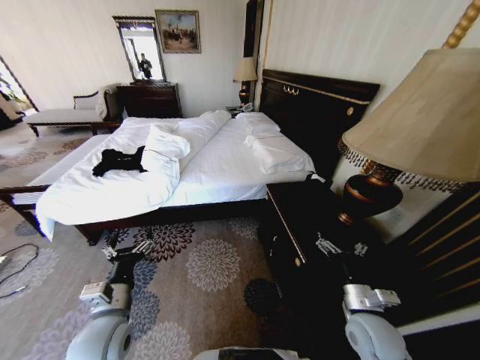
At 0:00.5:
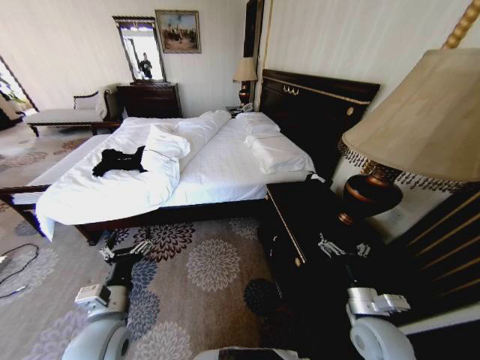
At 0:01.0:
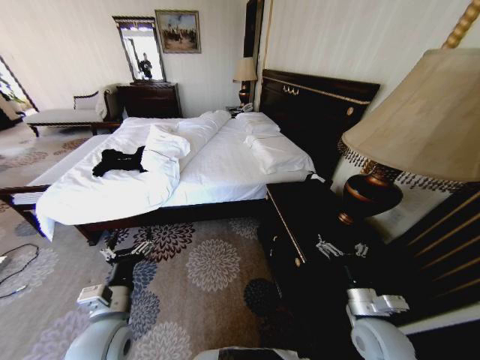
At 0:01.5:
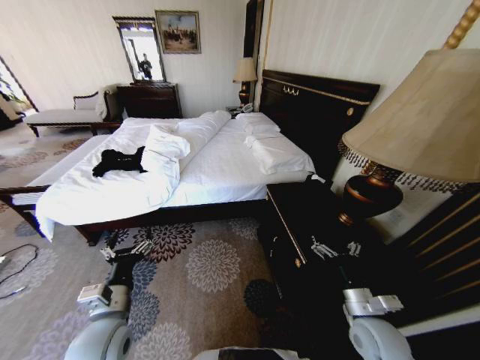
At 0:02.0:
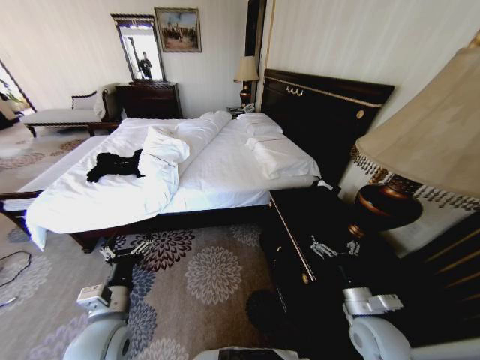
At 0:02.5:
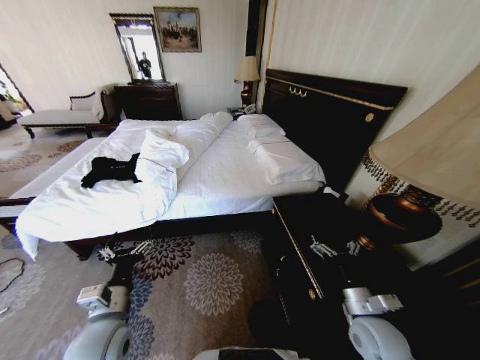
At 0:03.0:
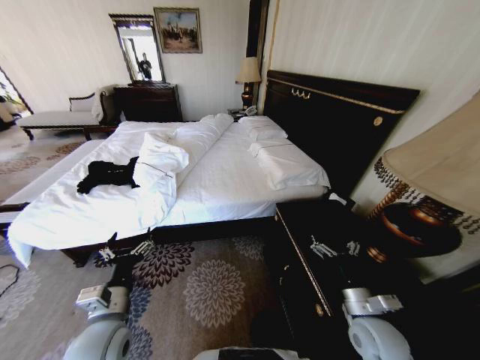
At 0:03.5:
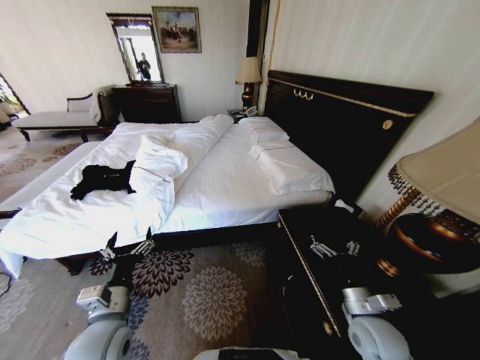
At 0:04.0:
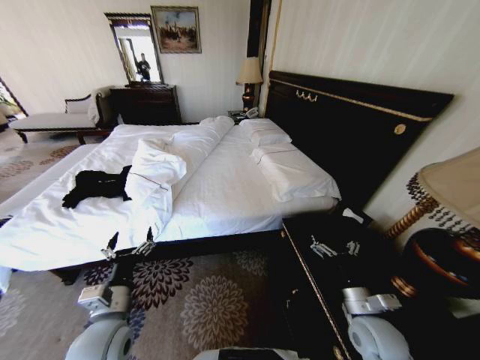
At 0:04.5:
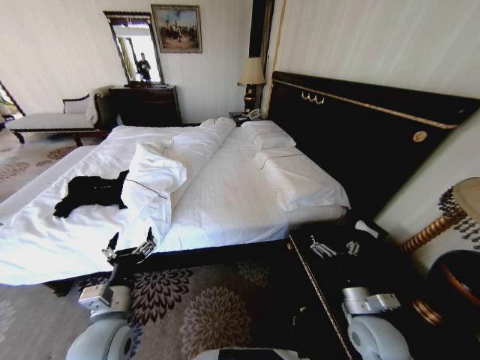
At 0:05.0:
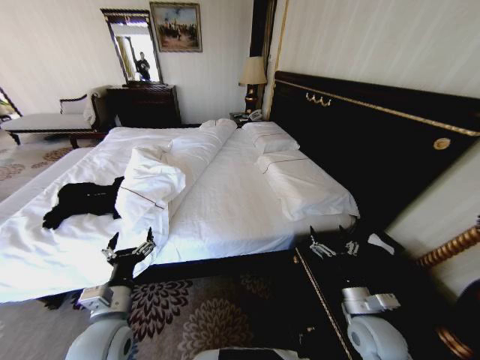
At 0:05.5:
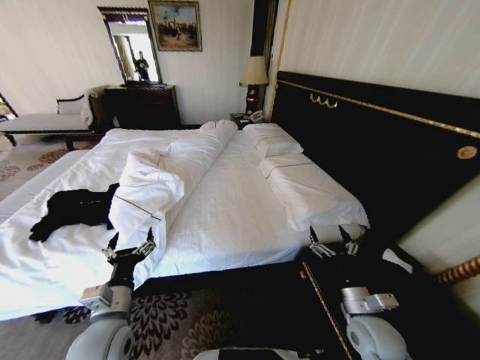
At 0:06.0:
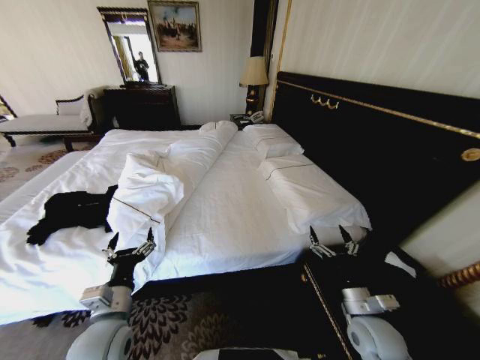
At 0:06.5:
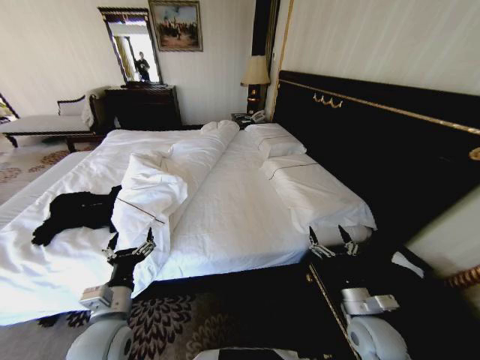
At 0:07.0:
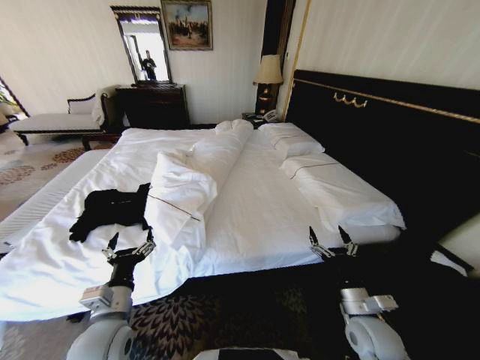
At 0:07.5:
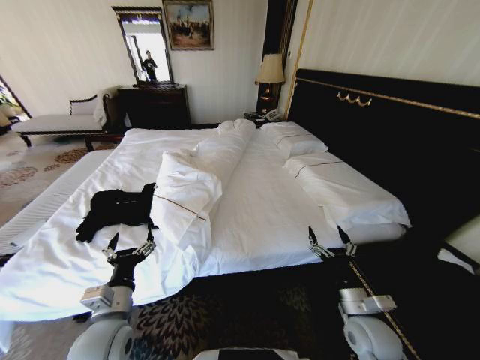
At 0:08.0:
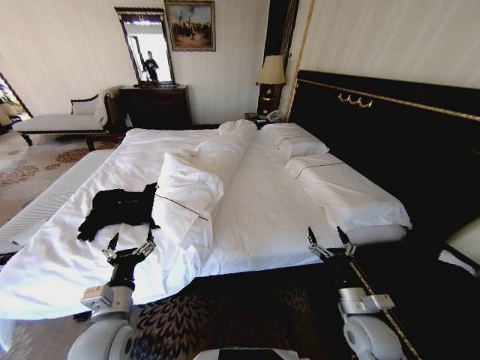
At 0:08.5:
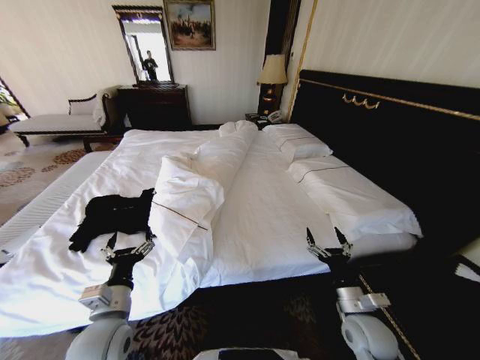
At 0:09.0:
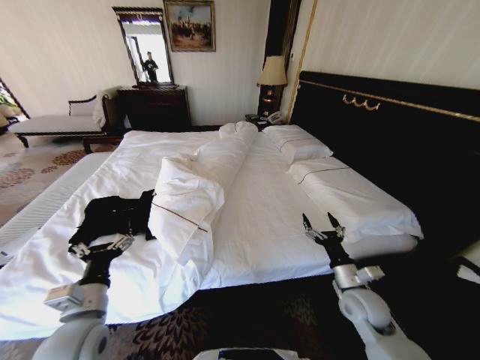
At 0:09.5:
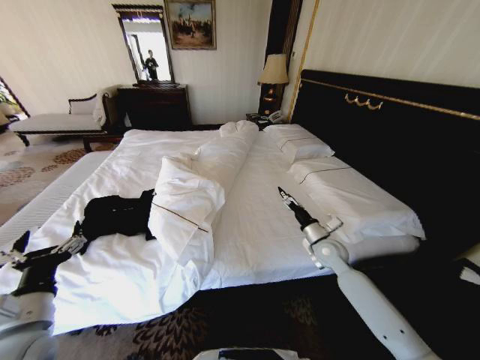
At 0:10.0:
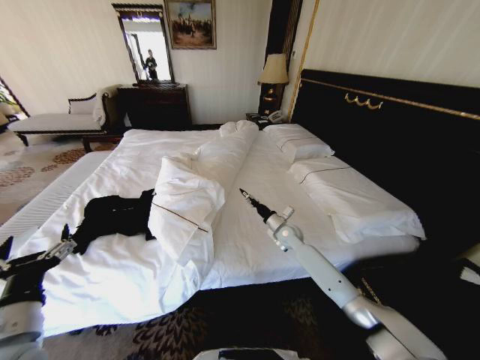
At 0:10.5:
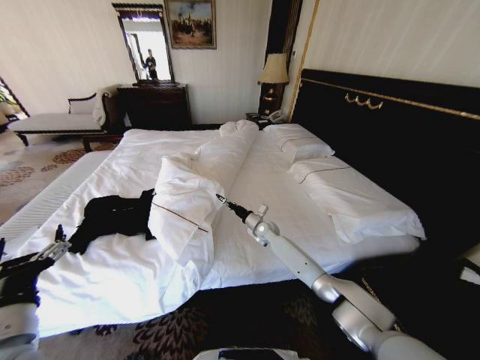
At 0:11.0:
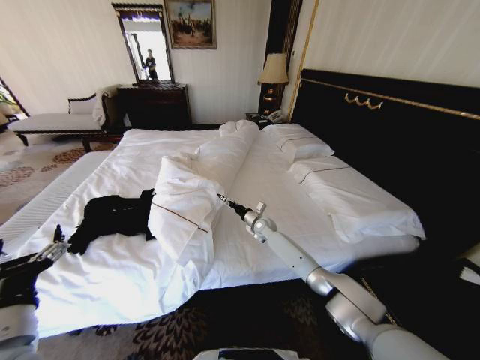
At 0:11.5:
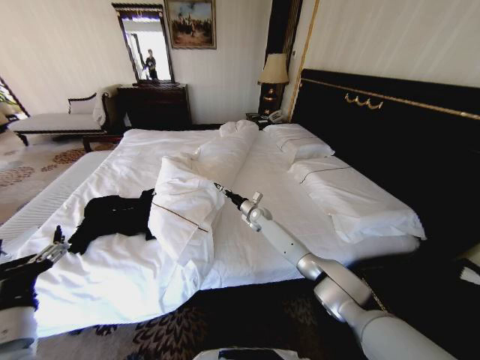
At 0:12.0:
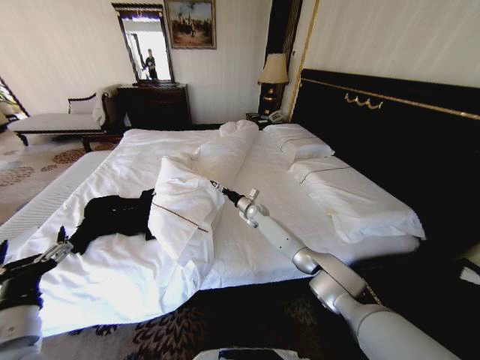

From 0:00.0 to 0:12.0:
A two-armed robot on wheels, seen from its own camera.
Task of the whole recording: Fold the clothes on the bed.
From 0:08.0 to 0:10.0: The right gripper heads forward, covering some 30 cm, while the left gripper goes about 10 cm to the left and upward.
From 0:10.0 to 0:12.0: The right gripper moves forward and to the left, roughly 15 cm.

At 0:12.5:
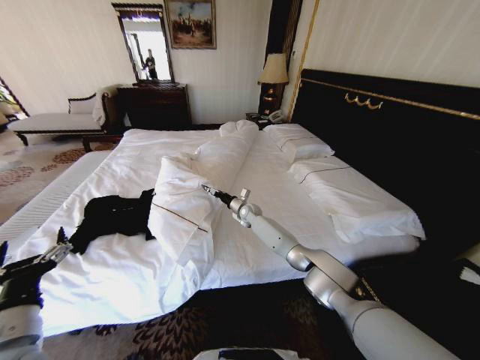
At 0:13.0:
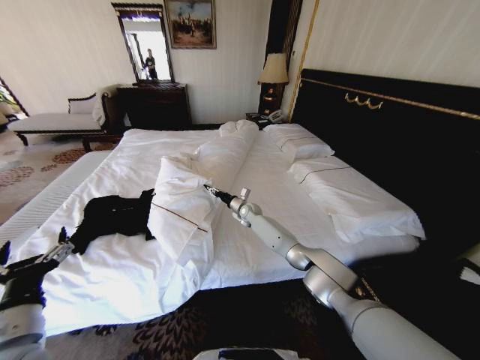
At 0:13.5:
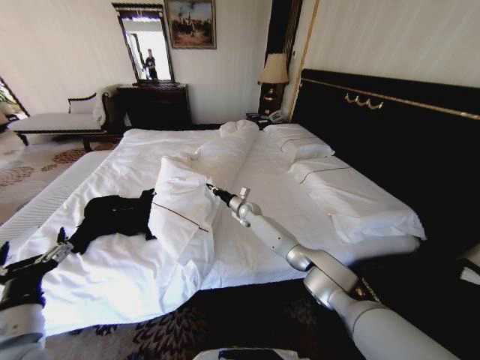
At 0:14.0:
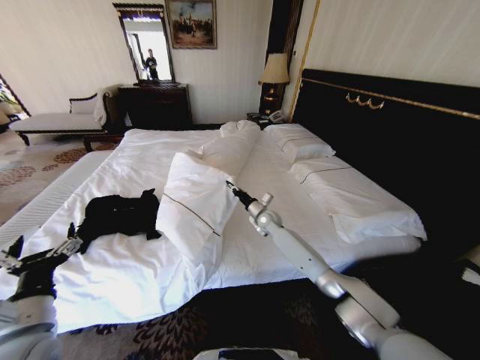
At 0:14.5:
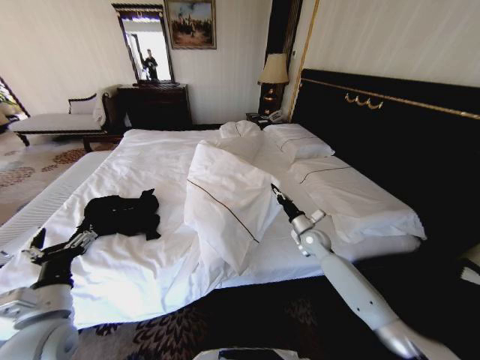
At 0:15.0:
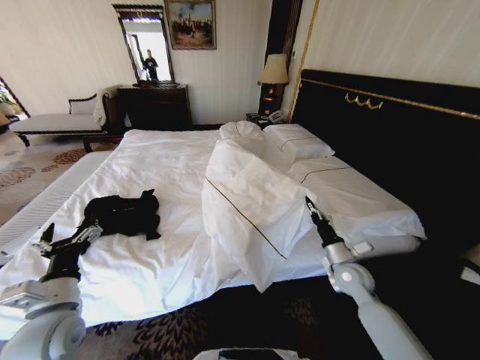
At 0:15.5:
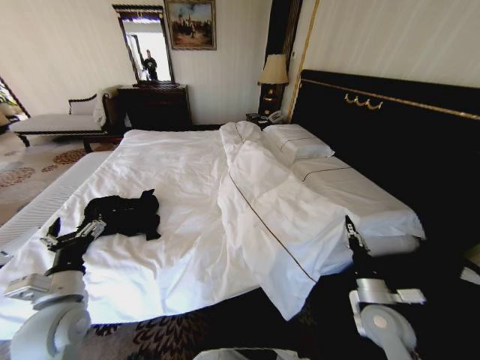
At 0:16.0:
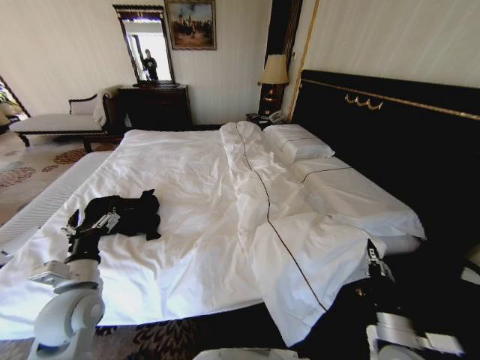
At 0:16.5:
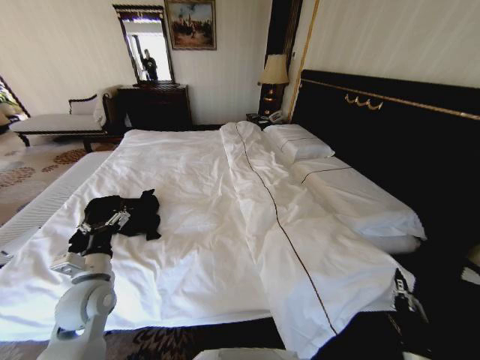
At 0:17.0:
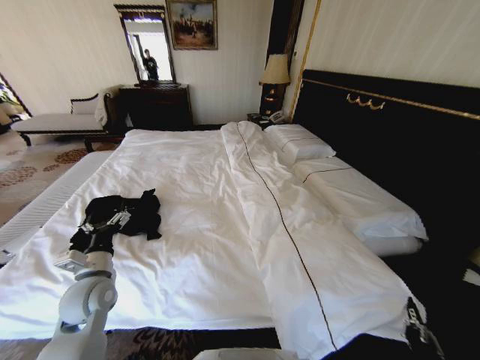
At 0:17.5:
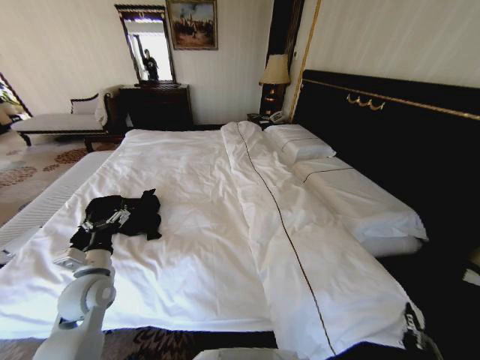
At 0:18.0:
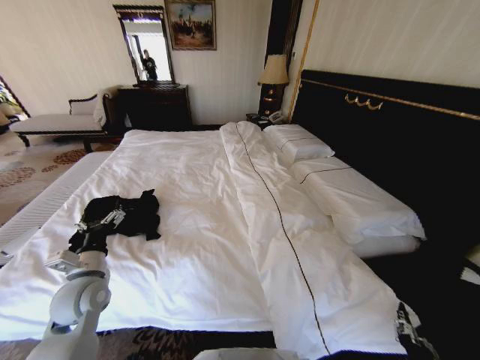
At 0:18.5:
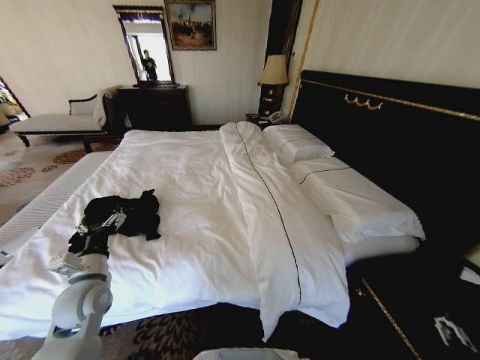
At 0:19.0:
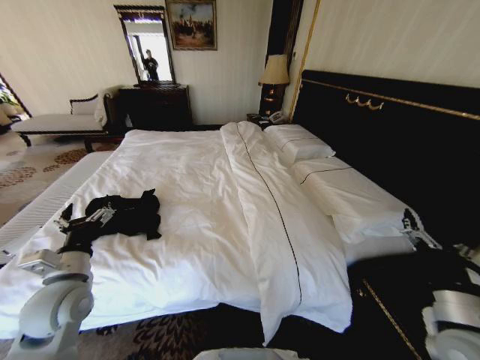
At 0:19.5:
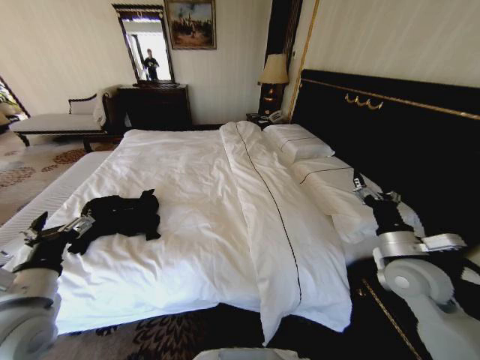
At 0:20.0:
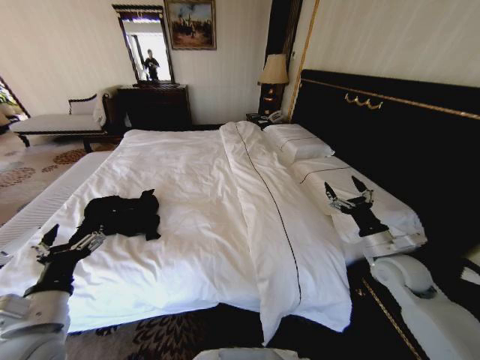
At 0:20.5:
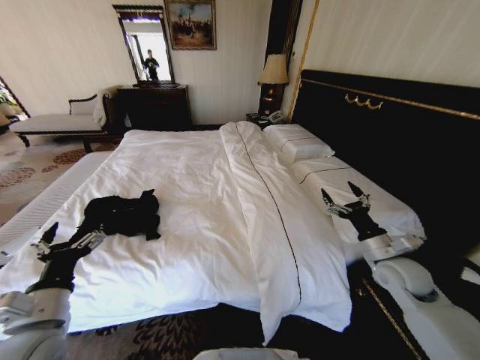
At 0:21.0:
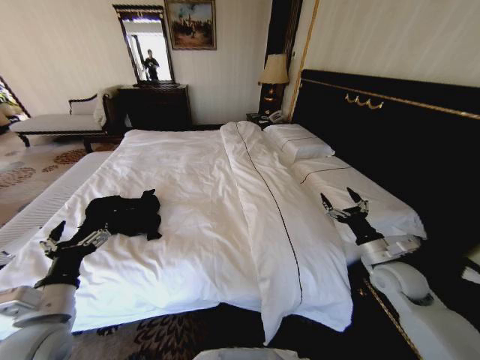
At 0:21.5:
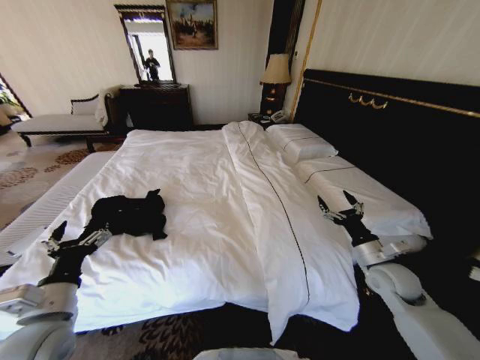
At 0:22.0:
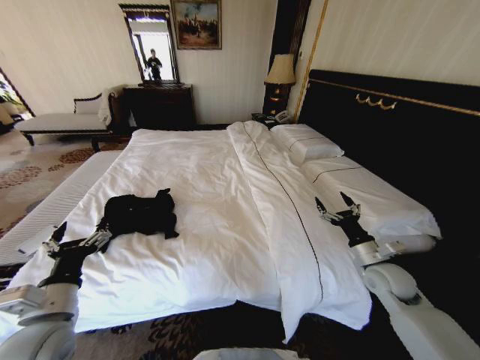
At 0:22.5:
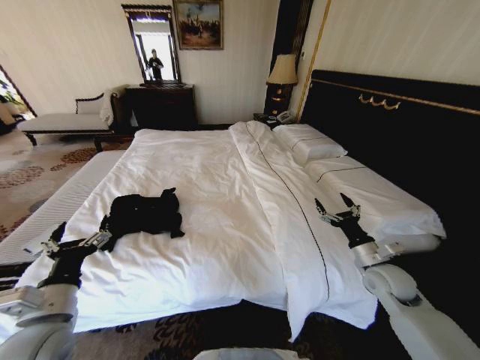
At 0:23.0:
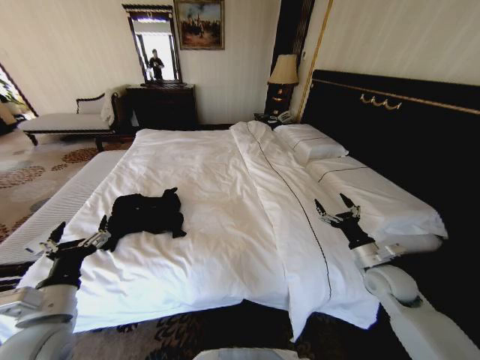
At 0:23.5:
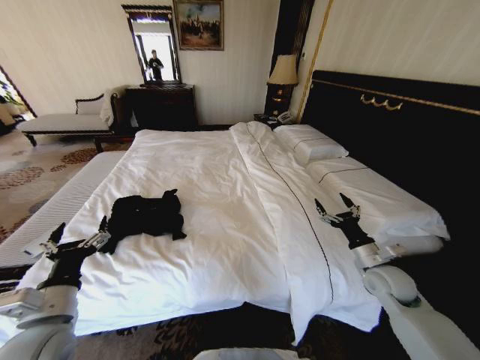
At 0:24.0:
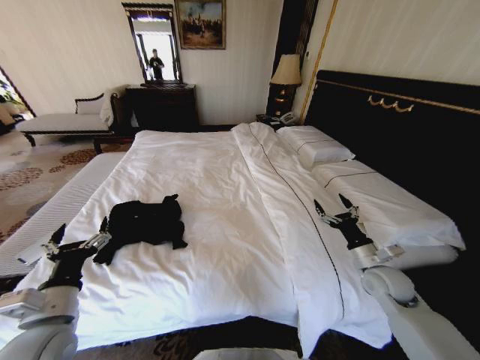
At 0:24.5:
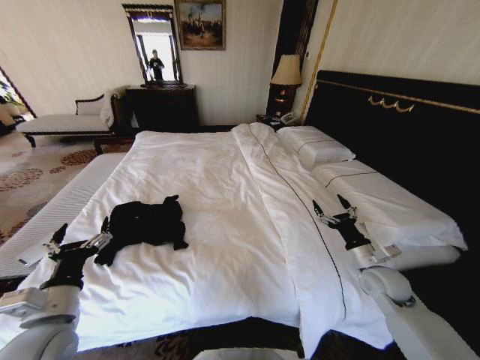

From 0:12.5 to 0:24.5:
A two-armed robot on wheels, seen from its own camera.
Task of the whole recording: Fold the clothes on the bed.
From 0:12.5 to 0:14.5: The right gripper is displaced to the right and backward by roughly 25 cm, and closes its fingers.
From 0:14.5 to 0:16.5: The left gripper moves forward, about 10 cm. The right gripper heads backward, covering some 40 cm.
From 0:16.5 to 0:18.5: The right gripper heads upward, covering approximately 5 cm, and opens.
From 0:18.5 to 0:20.5: The right gripper shifts roughly 25 cm forward. Meanwhile the left gripper goes roughly 10 cm backward and upward.

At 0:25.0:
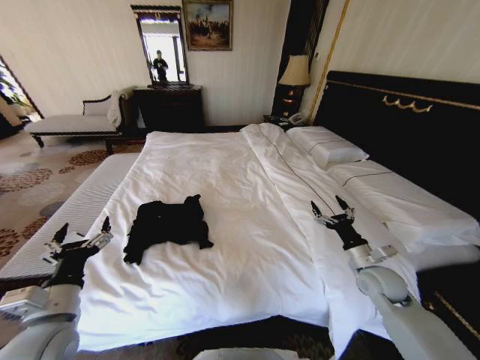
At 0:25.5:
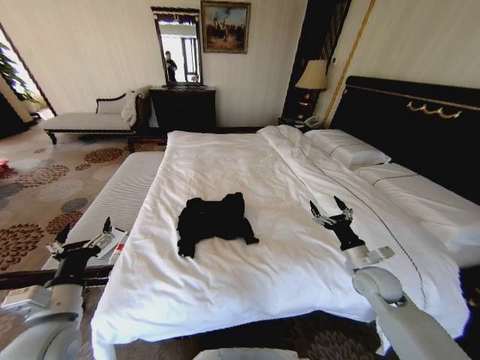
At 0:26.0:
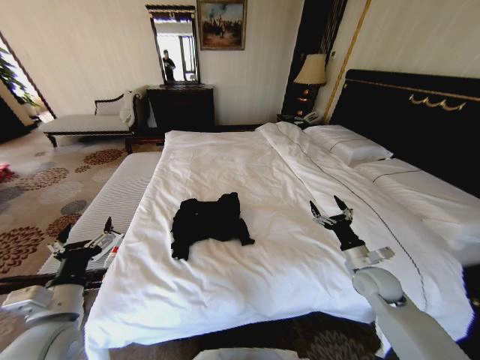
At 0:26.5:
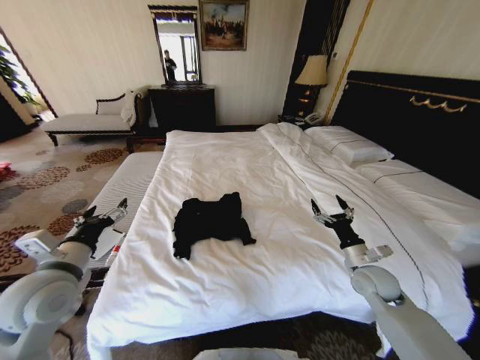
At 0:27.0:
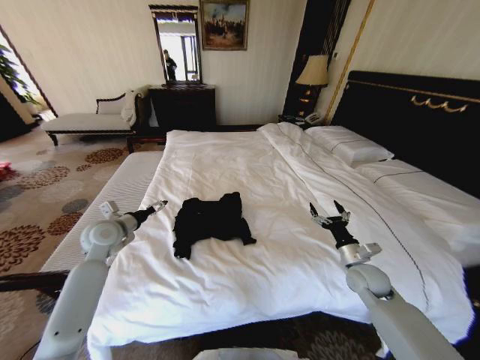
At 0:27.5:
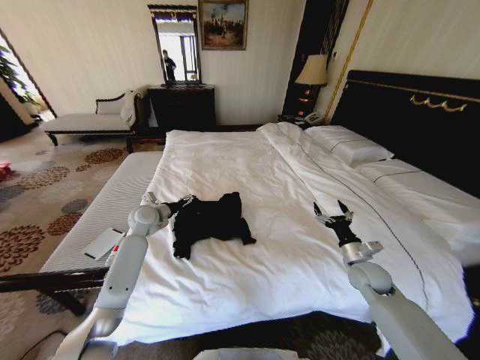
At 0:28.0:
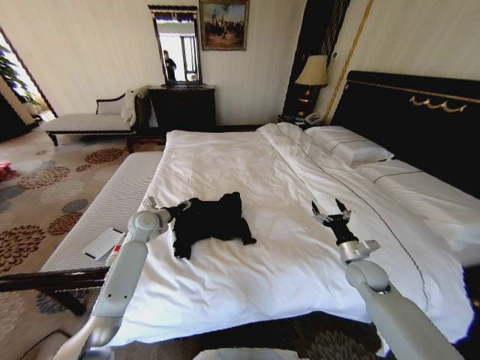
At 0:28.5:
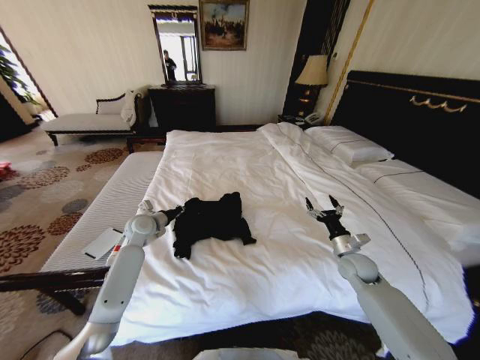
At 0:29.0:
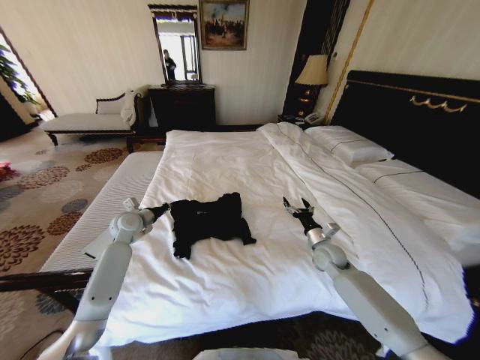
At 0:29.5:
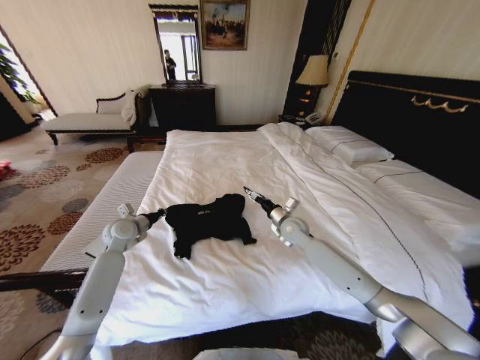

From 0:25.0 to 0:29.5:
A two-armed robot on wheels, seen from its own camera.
Task of the whole recording: Fold the clothes on the bed.
From 0:25.0 to 0:27.0: The left gripper is displaced forward by approximately 25 cm.
From 0:27.0 to 0:29.5: The left gripper closes up. The right gripper goes some 25 cm to the left and forward.
